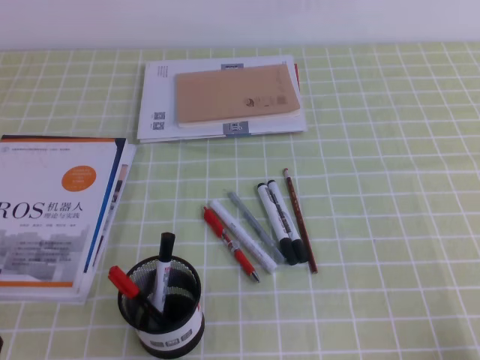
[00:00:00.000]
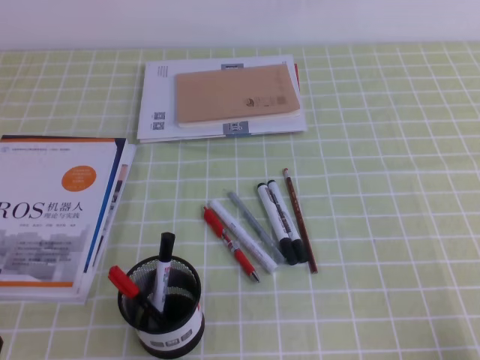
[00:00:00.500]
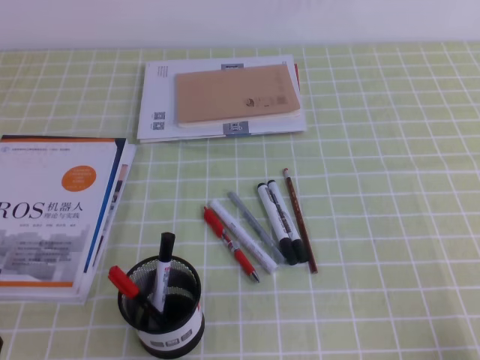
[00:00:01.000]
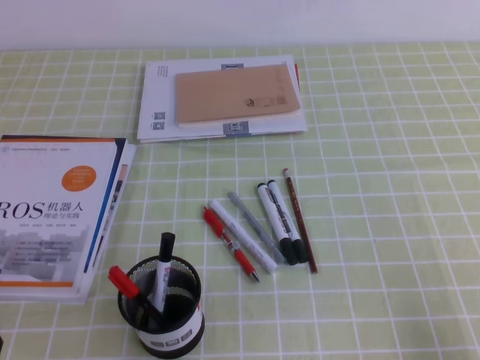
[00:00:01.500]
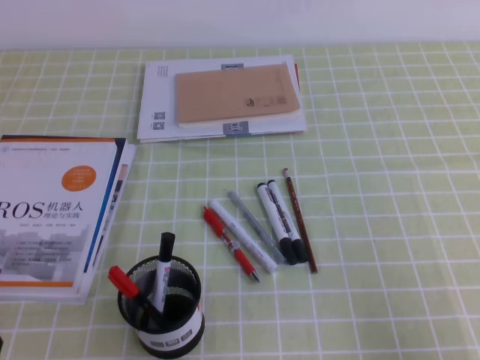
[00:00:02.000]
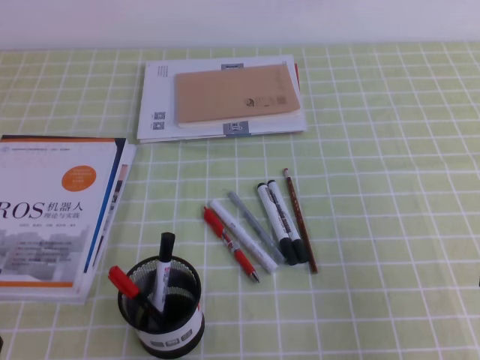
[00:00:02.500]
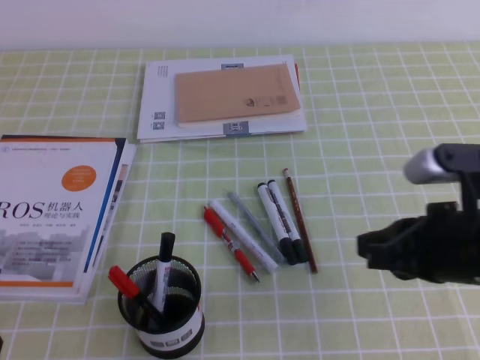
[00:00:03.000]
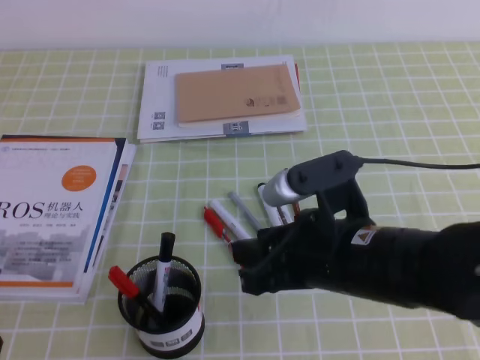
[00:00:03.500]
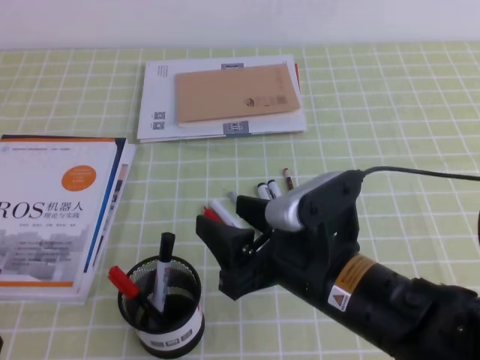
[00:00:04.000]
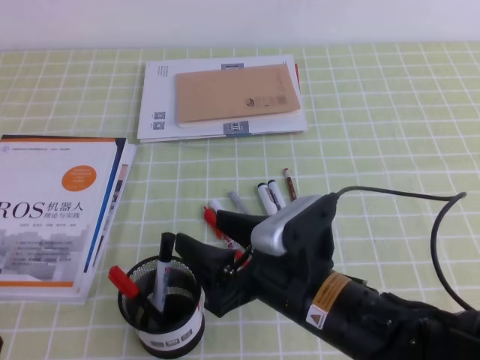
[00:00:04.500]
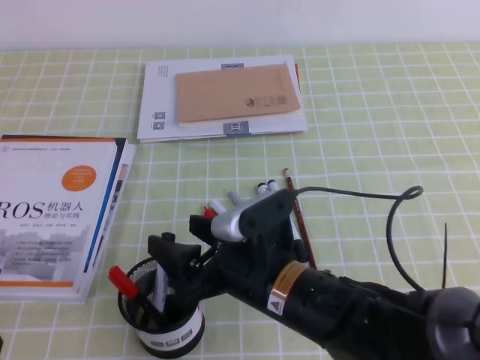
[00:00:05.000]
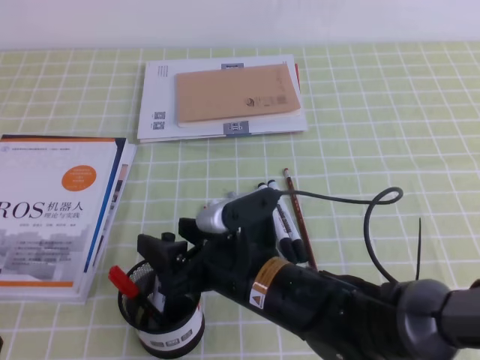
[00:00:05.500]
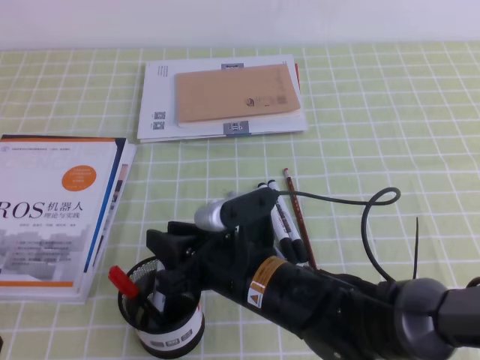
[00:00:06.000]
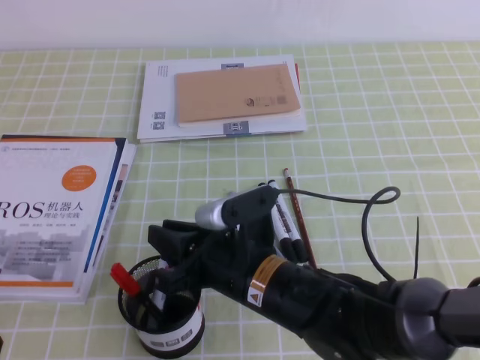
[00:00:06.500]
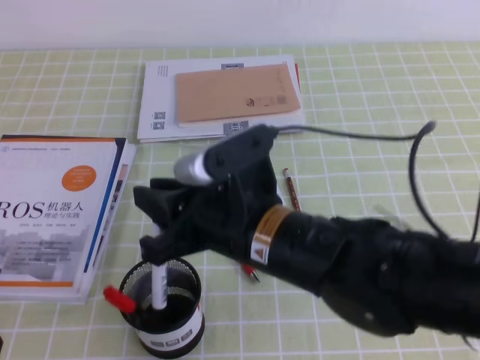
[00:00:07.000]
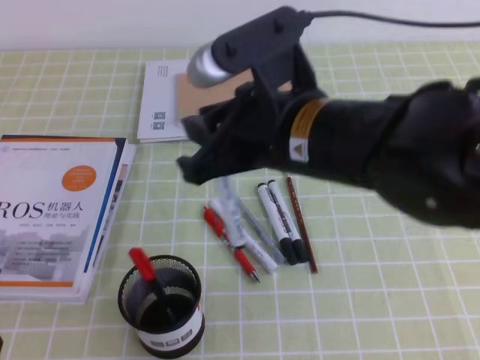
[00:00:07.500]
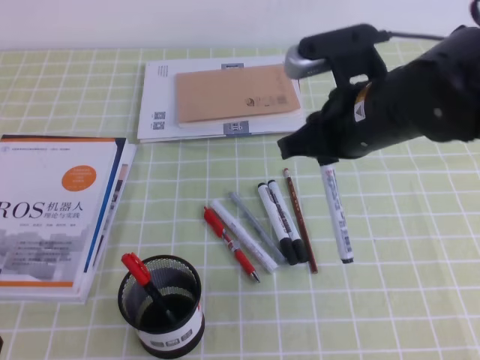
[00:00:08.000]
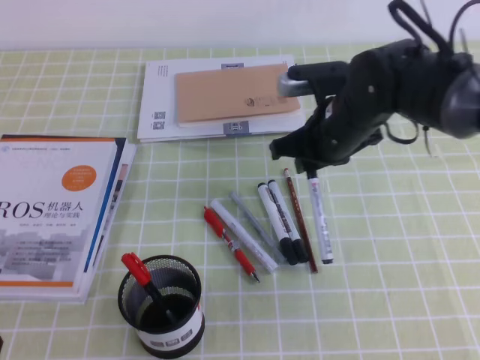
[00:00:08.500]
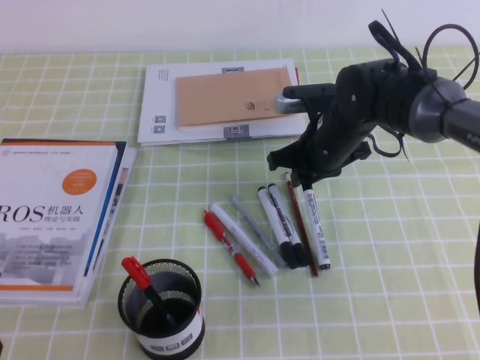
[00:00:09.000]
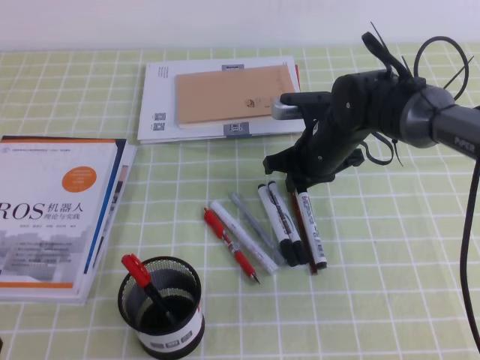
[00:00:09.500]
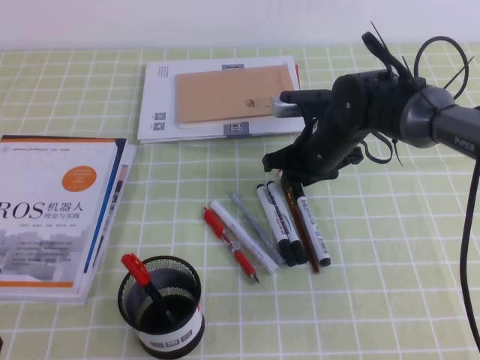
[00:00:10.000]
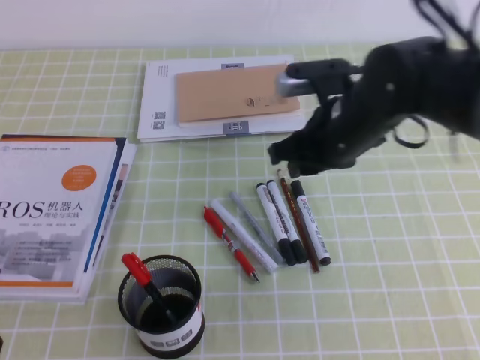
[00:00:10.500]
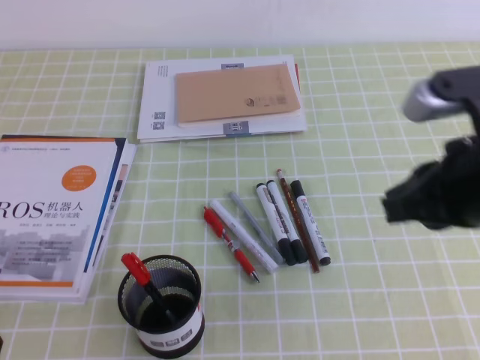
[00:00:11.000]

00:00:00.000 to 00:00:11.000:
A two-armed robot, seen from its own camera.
00:00:02.000 to 00:00:03.500: The right gripper travels to the left and forward by some 25 cm, and opens.
00:00:03.500 to 00:00:05.500: The right gripper goes some 10 cm to the left and downward, and opens.
00:00:05.500 to 00:00:07.500: The right gripper moves upward, about 15 cm, and closes up.
00:00:07.500 to 00:00:09.000: The right gripper goes some 25 cm forward and downward.
00:00:09.000 to 00:00:11.000: The right gripper shifts approximately 25 cm backward, upward and to the right.

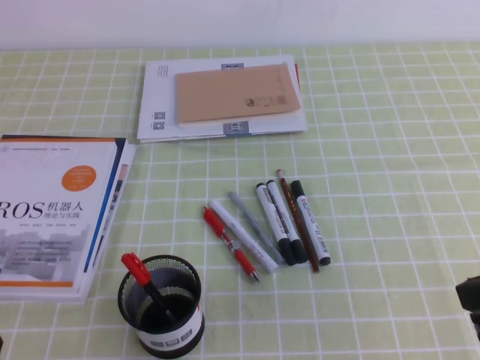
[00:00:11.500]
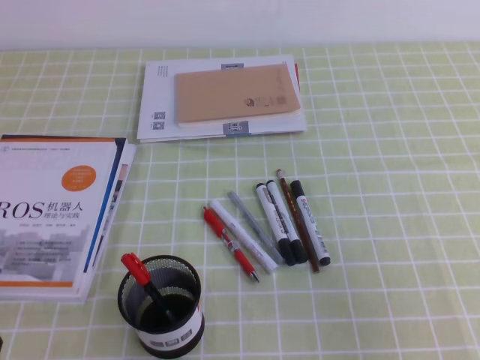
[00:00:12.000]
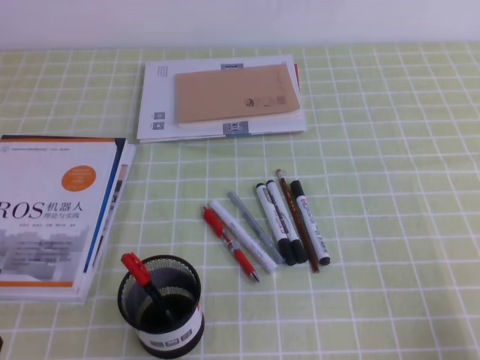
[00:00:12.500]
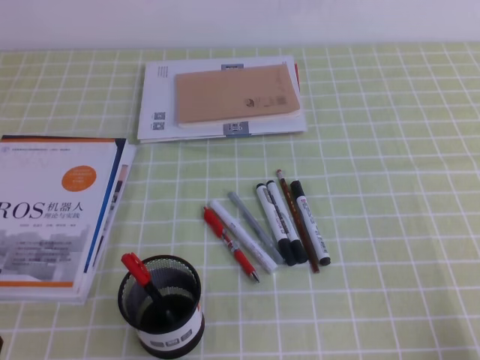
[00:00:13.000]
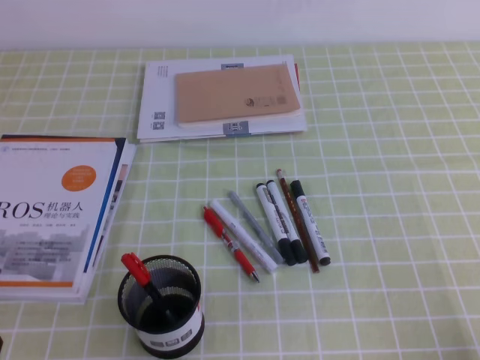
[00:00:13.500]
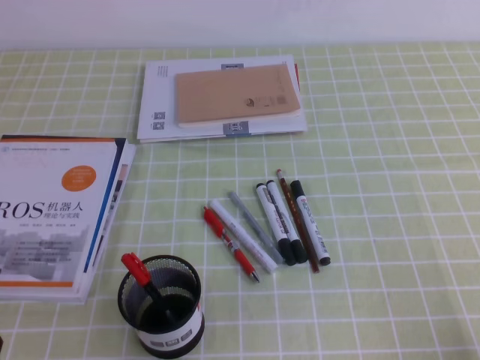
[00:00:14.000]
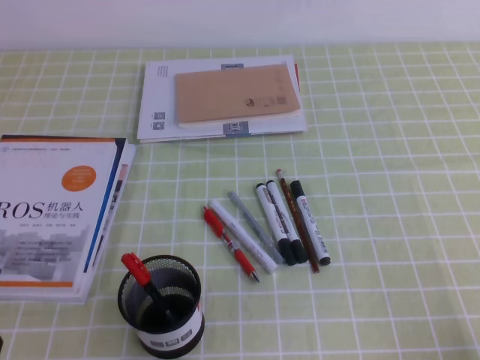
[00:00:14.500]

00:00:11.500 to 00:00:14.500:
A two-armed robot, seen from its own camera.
Step, 00:00:11.500 to 00:00:14.500: Pick up the pen from the pen holder.
00:00:11.500 to 00:00:13.000: The right gripper moves downward, to the right and backward, some 20 cm.
